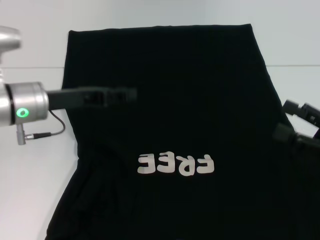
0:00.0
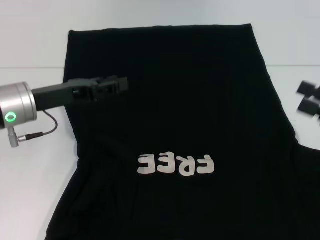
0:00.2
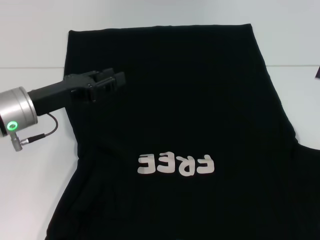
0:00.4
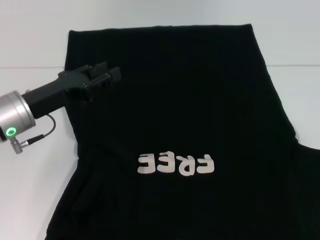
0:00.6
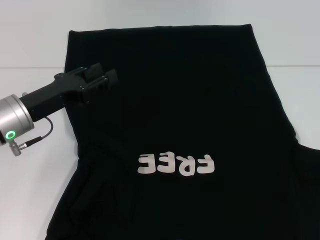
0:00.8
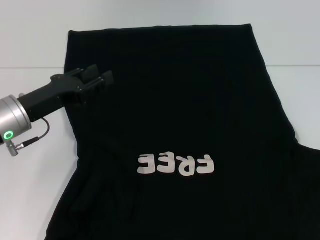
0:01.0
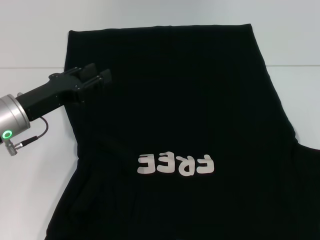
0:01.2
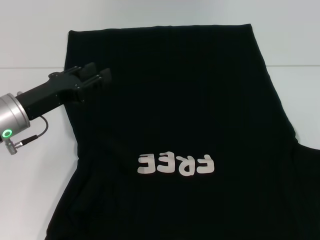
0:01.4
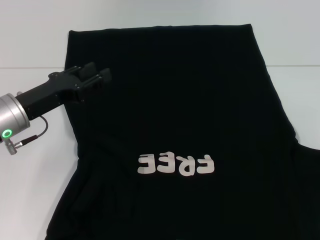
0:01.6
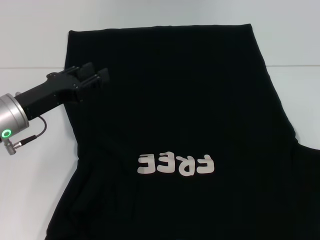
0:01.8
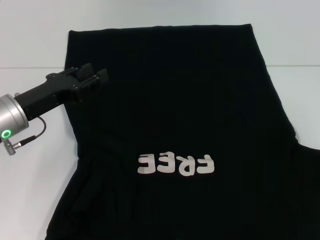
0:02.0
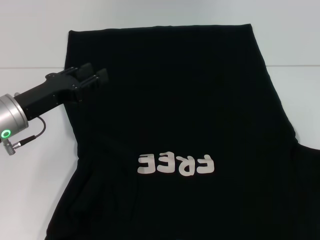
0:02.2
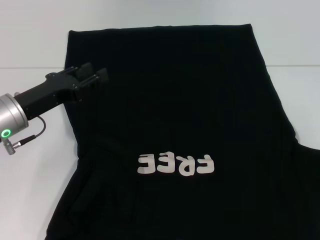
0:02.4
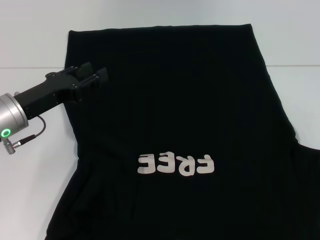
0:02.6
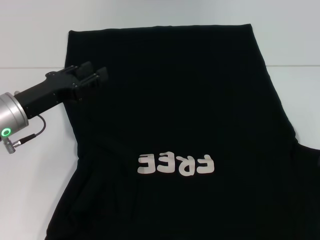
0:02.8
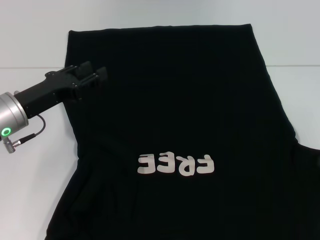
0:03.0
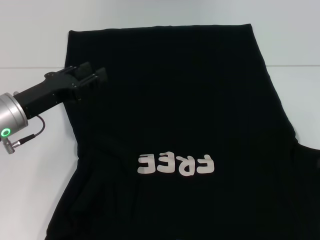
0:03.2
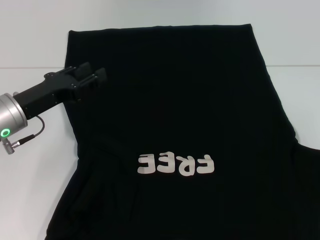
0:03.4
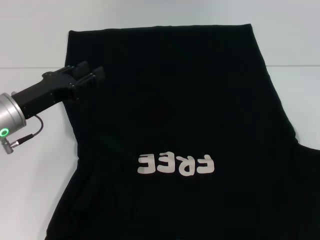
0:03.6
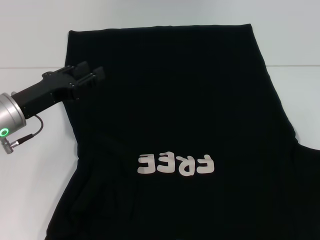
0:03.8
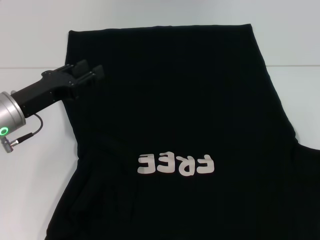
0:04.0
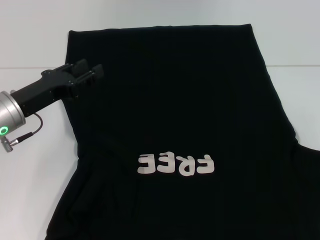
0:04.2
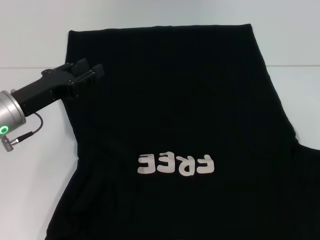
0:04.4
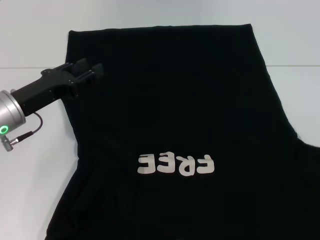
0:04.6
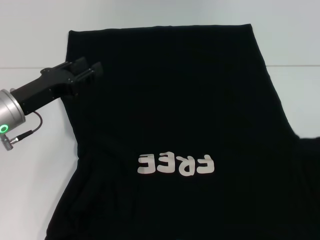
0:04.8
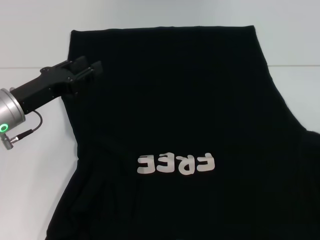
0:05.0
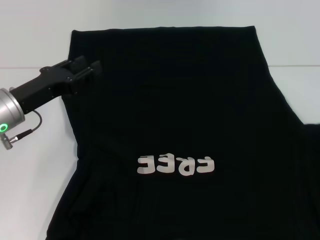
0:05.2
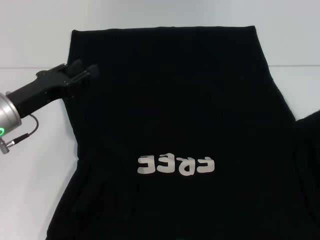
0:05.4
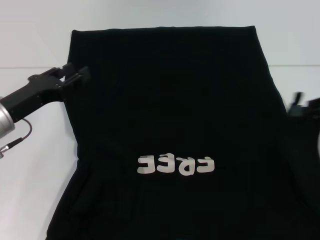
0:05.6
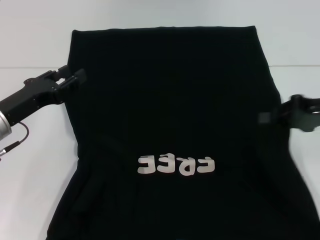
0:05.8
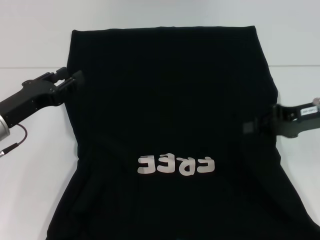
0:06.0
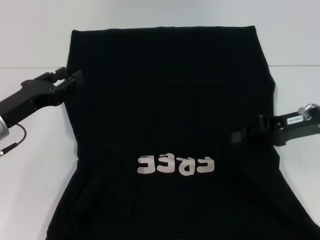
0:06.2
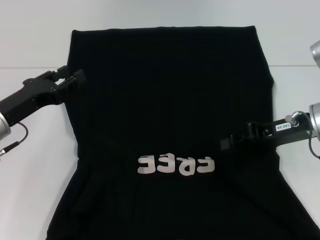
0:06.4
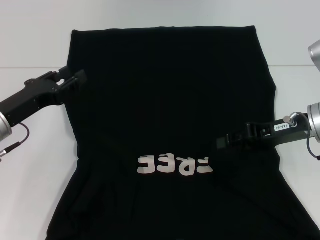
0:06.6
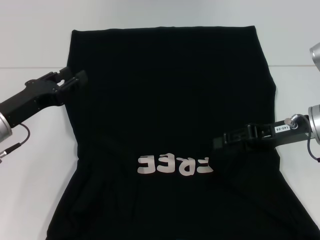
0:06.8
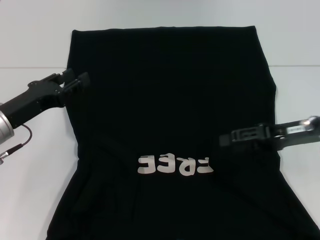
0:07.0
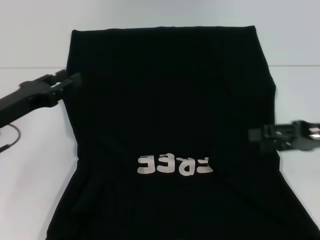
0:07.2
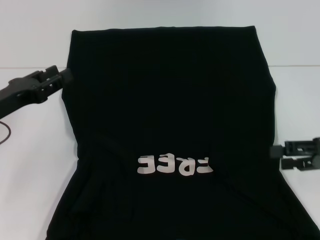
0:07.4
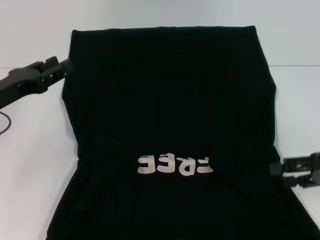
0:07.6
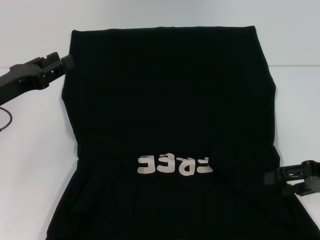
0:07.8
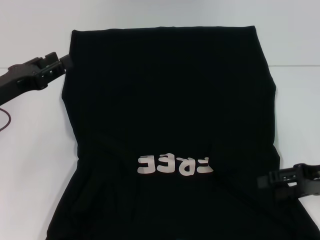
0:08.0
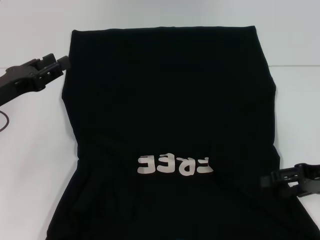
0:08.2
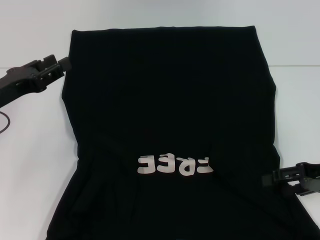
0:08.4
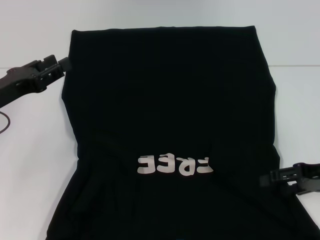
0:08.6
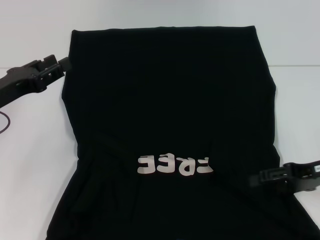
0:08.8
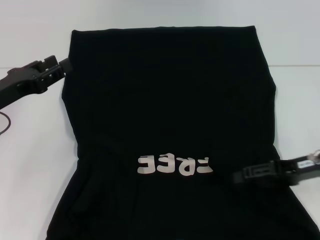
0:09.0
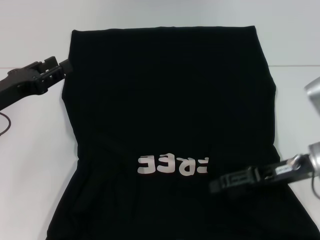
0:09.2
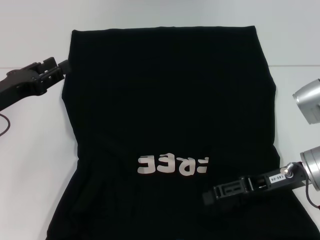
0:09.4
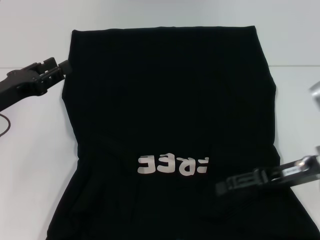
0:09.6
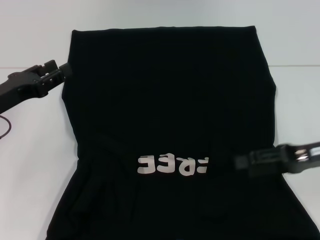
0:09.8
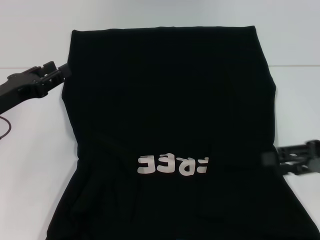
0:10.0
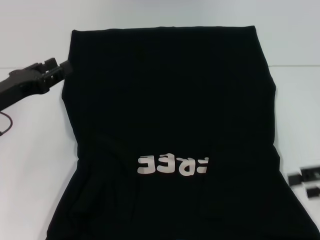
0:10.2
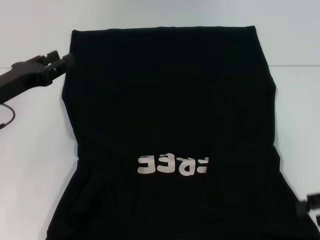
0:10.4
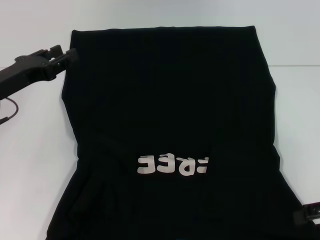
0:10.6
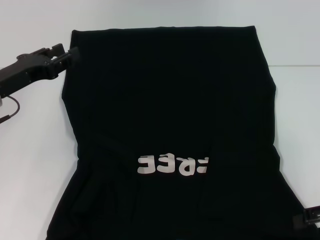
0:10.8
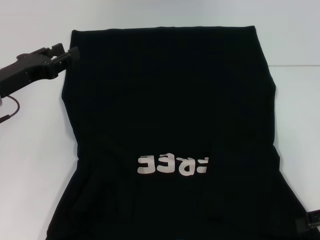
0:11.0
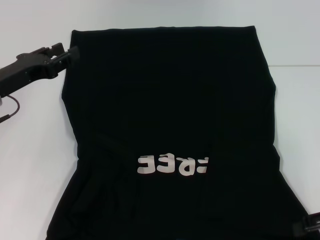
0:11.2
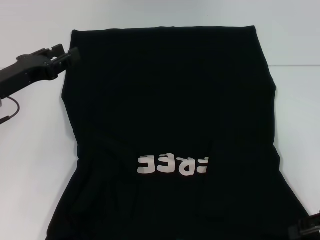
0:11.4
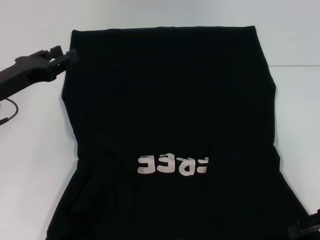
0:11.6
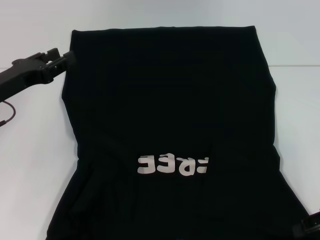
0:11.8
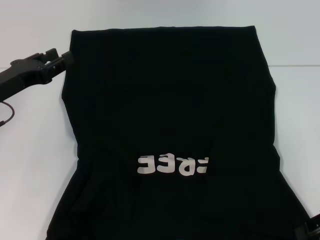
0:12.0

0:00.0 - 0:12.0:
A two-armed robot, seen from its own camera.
Step, 0:00.0 - 0:09.8: Fold the bottom right sleeve with your right hand.
0:00.0 - 0:01.6: The right gripper travels to the right by approximately 10 cm, and goes upward and returns, about 10 cm each way.
0:01.6 - 0:03.0: The grippers move only a little.
0:04.4 - 0:06.0: The right gripper heads to the left and forward, covering approximately 15 cm.
0:06.0 - 0:07.6: The right gripper shifts some 10 cm backward and to the right, and opens.
0:07.6 - 0:09.0: The right gripper goes approximately 5 cm to the left.
0:09.0 - 0:10.4: The right gripper is displaced to the right and backward by some 10 cm.

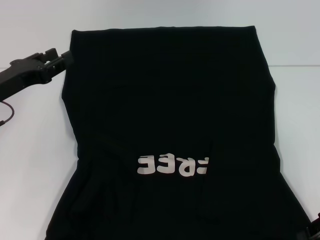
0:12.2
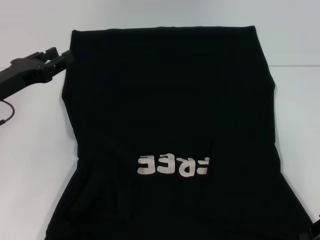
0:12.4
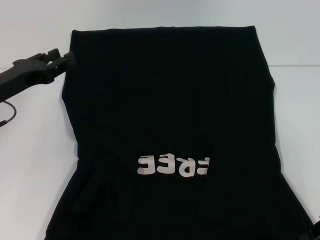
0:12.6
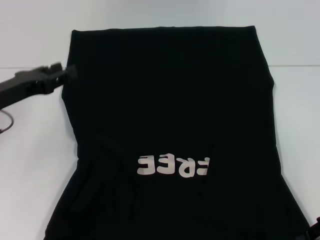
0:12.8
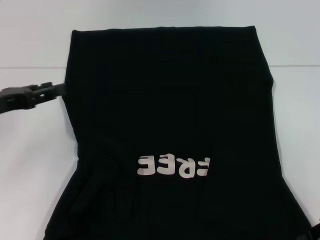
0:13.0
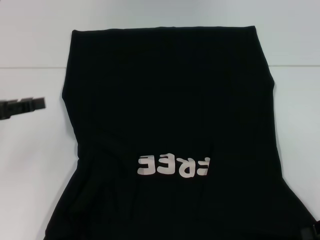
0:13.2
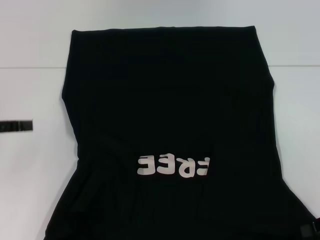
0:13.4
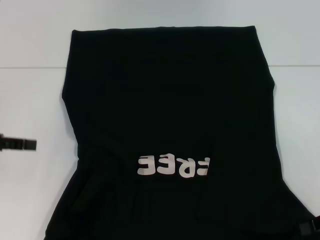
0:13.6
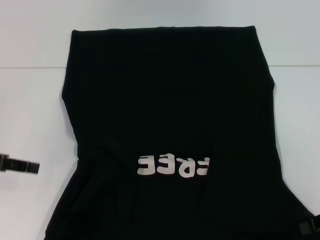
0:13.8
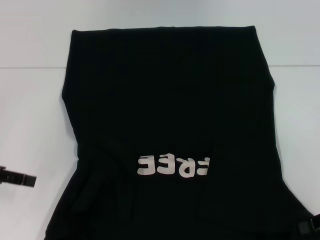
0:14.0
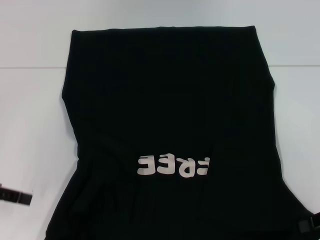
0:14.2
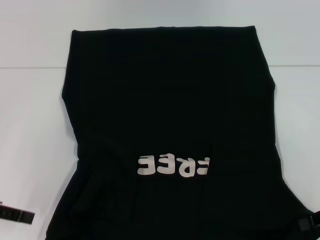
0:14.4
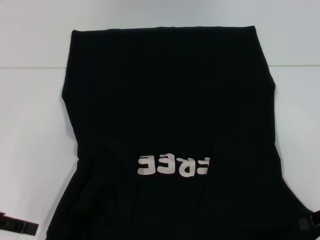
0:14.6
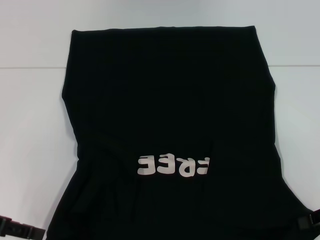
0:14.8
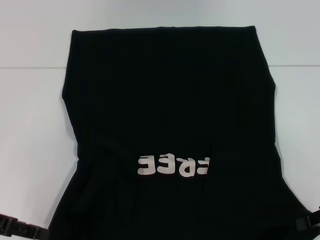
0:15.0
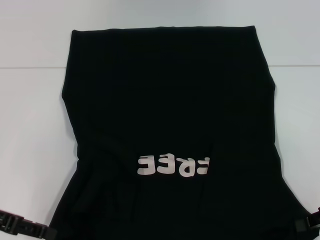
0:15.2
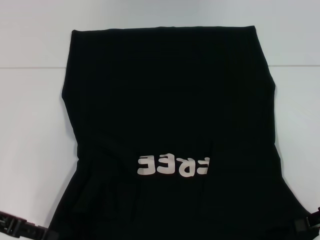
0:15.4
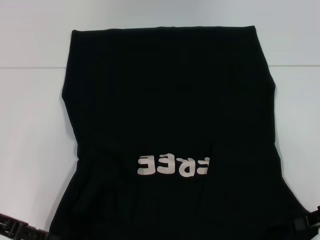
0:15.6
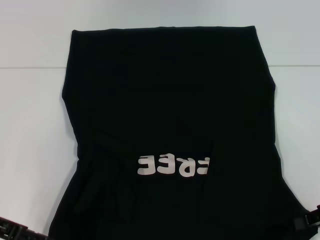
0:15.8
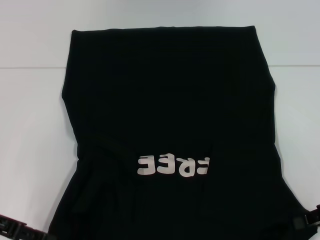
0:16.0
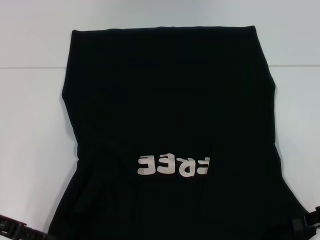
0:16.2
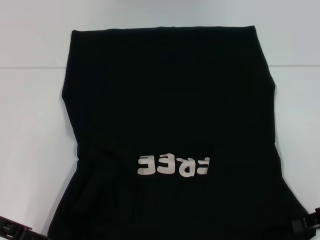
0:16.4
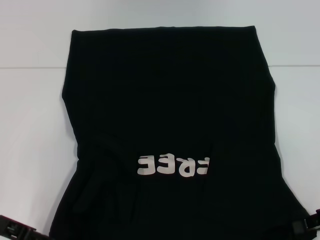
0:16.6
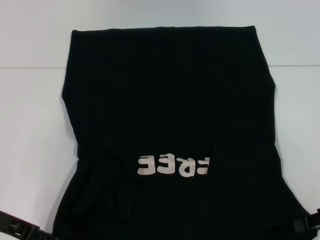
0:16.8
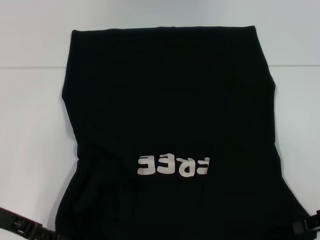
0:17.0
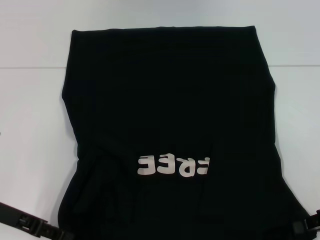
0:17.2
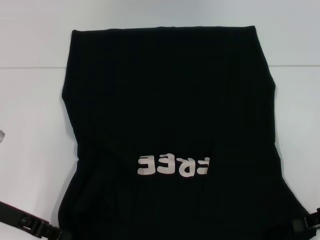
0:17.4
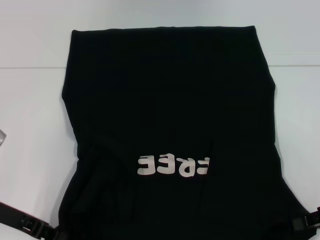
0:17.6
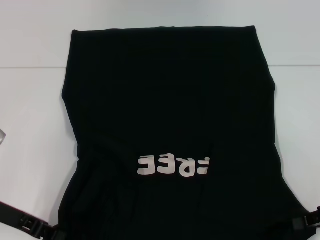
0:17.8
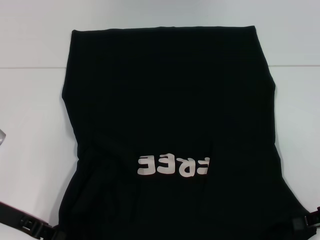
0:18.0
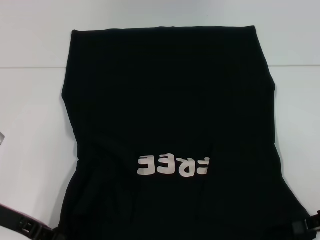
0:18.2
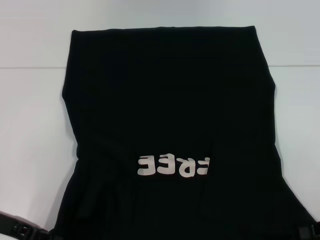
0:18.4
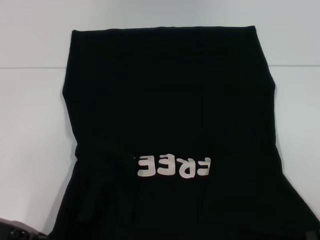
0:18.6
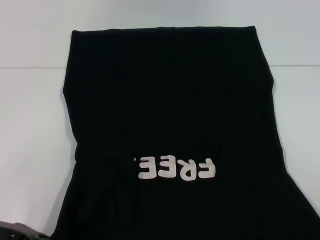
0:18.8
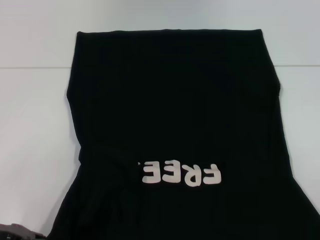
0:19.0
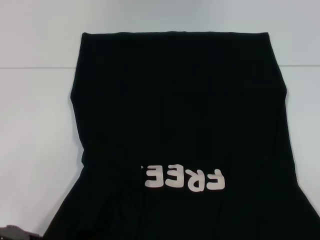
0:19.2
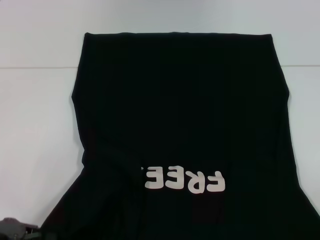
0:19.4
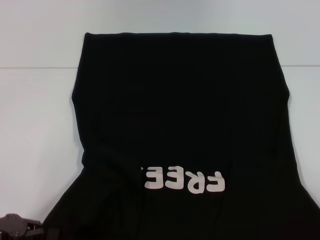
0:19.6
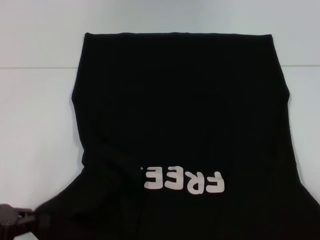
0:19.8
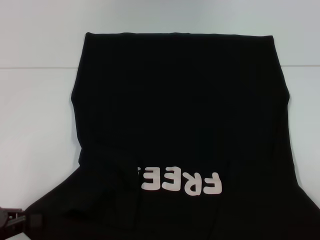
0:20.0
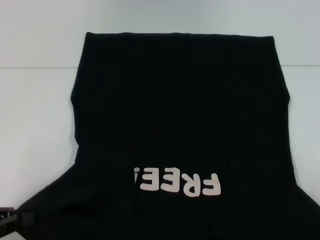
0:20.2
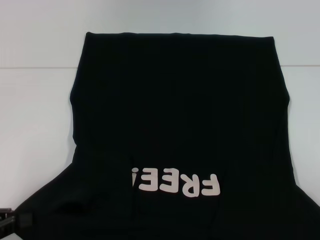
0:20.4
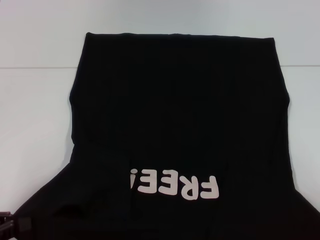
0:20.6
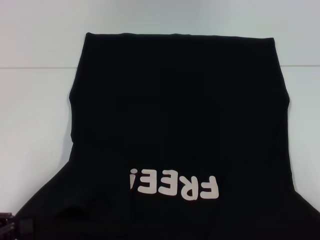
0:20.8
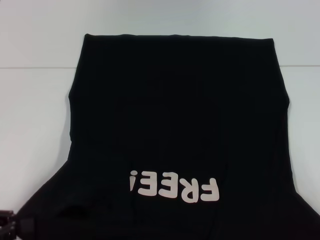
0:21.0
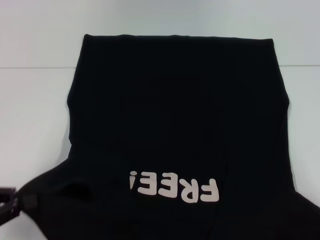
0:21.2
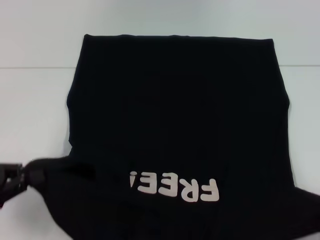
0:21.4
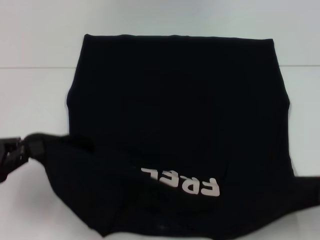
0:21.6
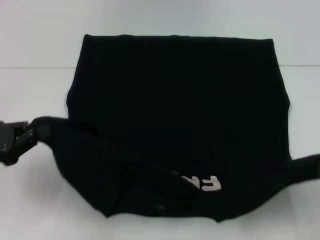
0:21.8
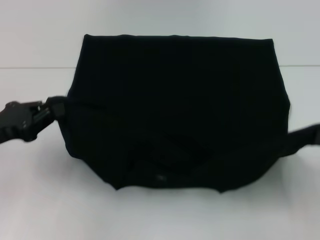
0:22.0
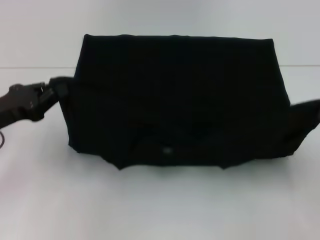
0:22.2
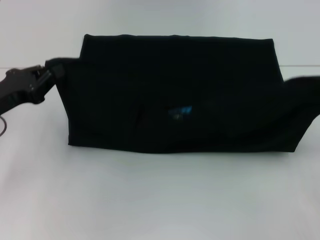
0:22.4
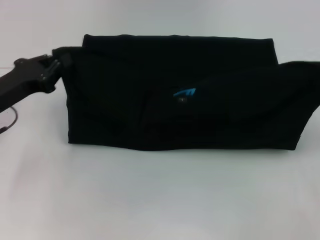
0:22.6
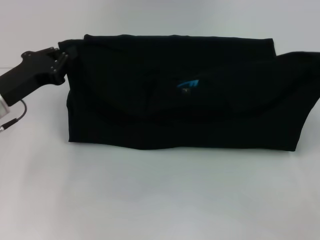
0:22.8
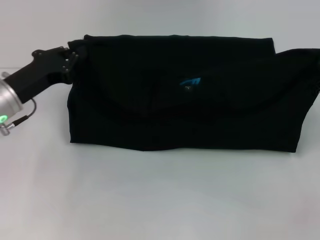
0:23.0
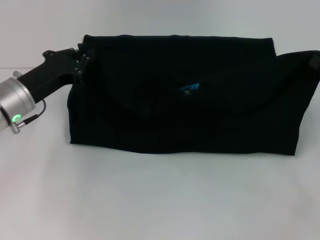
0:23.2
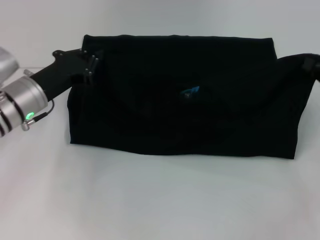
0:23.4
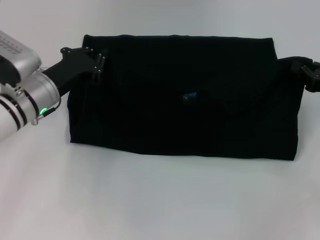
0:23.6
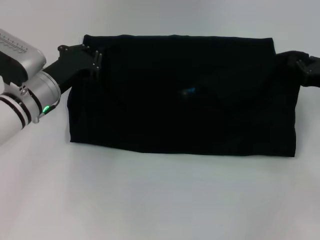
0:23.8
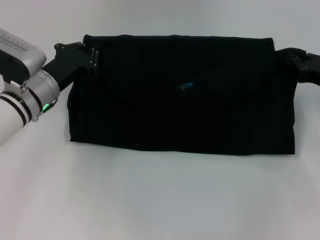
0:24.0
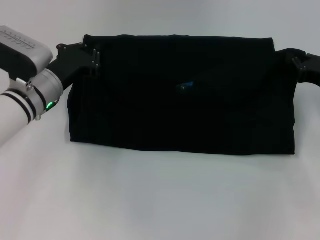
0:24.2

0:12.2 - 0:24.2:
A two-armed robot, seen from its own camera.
Step, 0:13.0 - 0:18.0: Grab the bottom left corner with your left hand.
0:12.2 - 0:13.8: The left gripper is displaced to the left by approximately 5 cm. The right gripper closes.
0:13.8 - 0:15.2: The left gripper shifts by roughly 5 cm.
0:15.2 - 0:16.6: The grippers stay close to where they were, moving slightly.
0:16.6 - 0:18.2: The left gripper closes up.
0:18.2 - 0:19.8: Both grippers move backward, approximately 5 cm.
0:19.8 - 0:21.2: The grippers make only small movements.
0:21.2 - 0:22.6: The right gripper shifts roughly 10 cm forward and upward. Meanwhile the left gripper moves forward and to the right, approximately 15 cm.
0:22.6 - 0:24.2: The right gripper is displaced forward and to the left by approximately 10 cm. The left gripper shifts approximately 10 cm to the right and forward.
